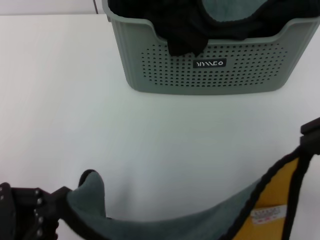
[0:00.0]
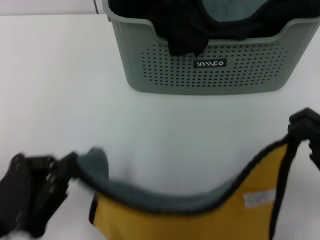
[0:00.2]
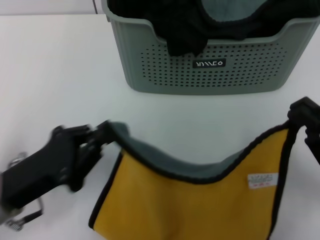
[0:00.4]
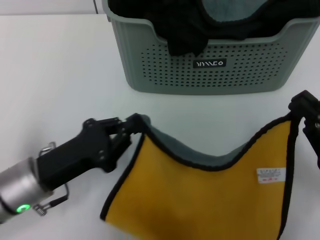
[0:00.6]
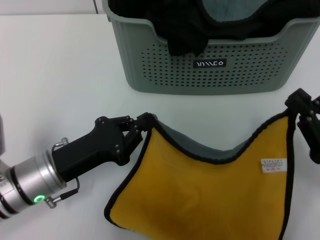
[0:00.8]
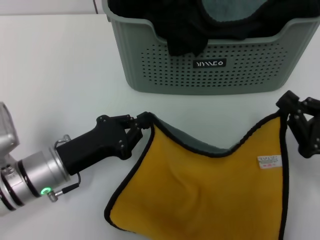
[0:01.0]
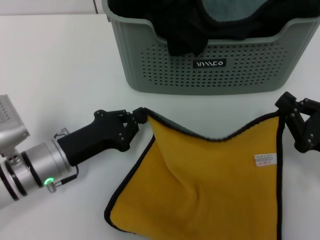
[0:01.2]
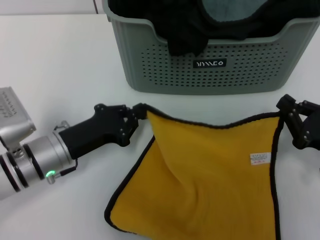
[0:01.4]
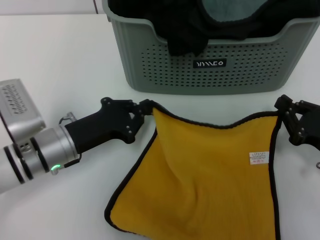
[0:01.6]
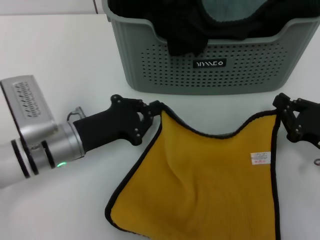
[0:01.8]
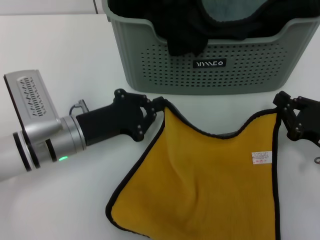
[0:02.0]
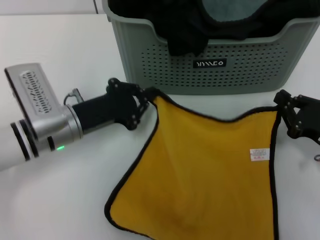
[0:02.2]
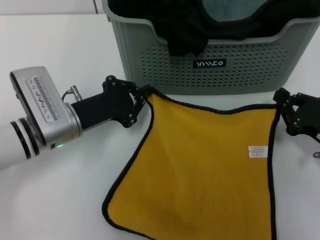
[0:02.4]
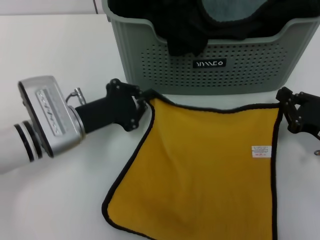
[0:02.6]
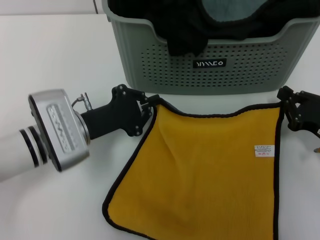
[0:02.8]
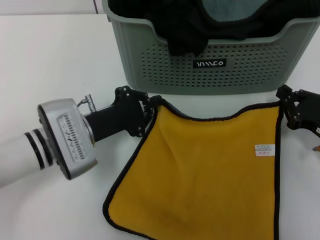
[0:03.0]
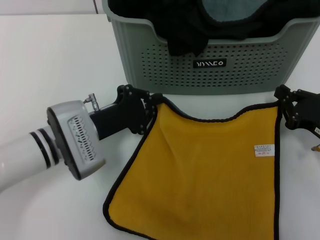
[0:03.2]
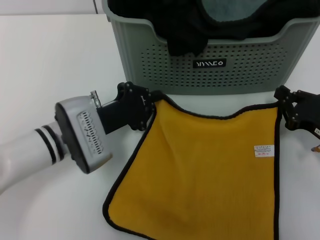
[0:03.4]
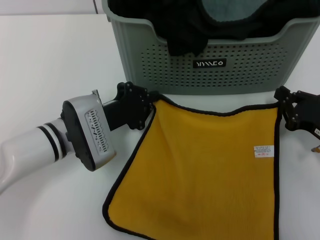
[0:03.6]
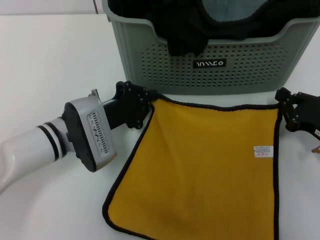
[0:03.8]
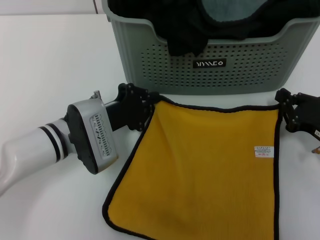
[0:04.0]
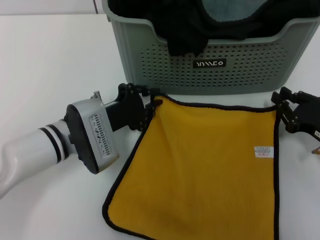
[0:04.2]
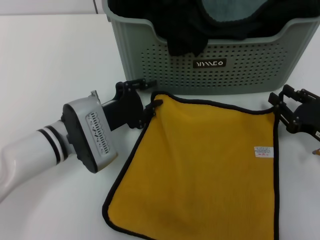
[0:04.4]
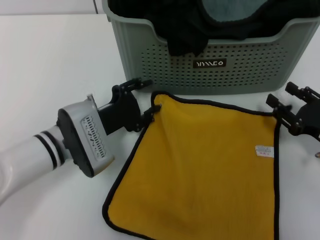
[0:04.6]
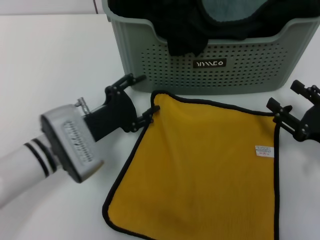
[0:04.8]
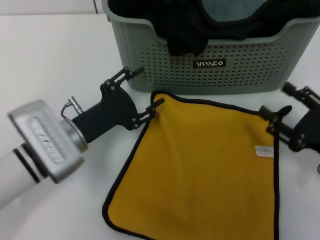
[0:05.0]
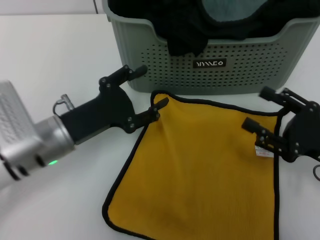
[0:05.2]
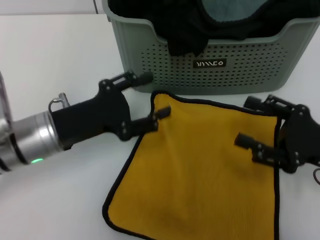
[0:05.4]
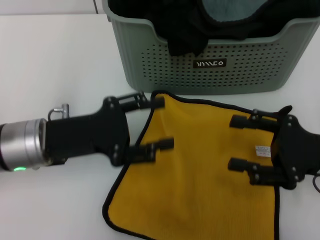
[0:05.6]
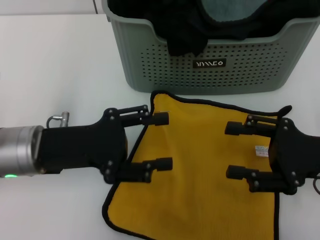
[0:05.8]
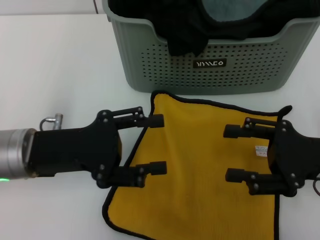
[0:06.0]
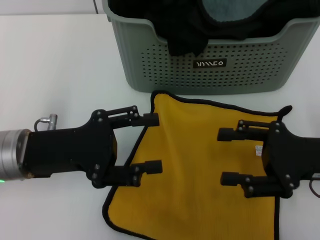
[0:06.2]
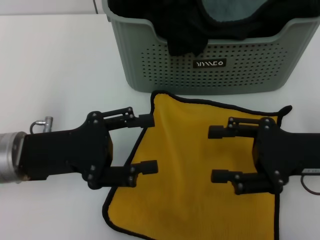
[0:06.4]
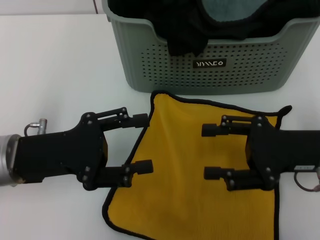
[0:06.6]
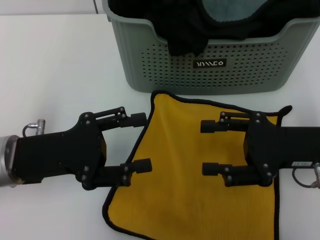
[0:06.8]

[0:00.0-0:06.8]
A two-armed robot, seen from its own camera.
Task of the whole recording: pick up the towel from the storage box and lay it flat on the table.
Step, 0:00.0 to 0:04.2: Spread the towel flat with the right gripper.
0:00.0 to 0:01.4: The right gripper goes roughly 15 cm downward and forward; the left gripper goes roughly 20 cm forward and downward.
0:02.8 to 0:04.0: The grippers stay close to where they were, moving slightly.
0:04.0 to 0:05.4: Both grippers move upward, approximately 5 cm. The right gripper opens; the left gripper opens up.
0:05.4 to 0:06.8: The right gripper moves about 5 cm.
